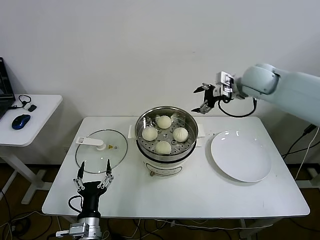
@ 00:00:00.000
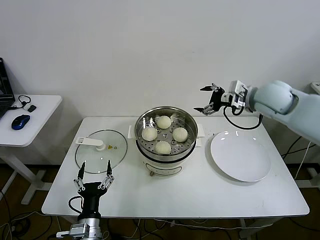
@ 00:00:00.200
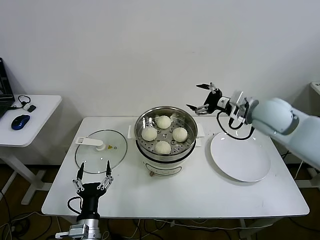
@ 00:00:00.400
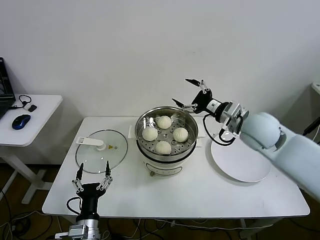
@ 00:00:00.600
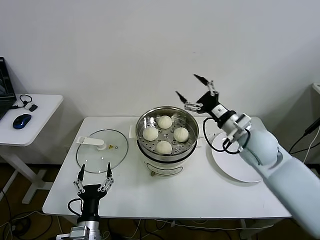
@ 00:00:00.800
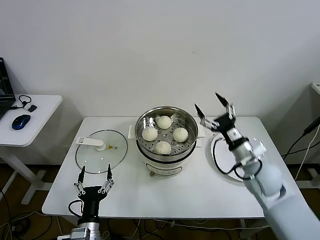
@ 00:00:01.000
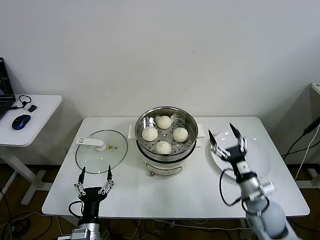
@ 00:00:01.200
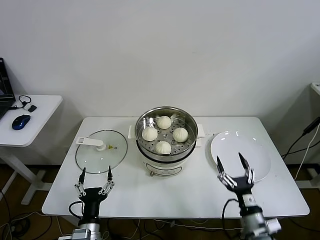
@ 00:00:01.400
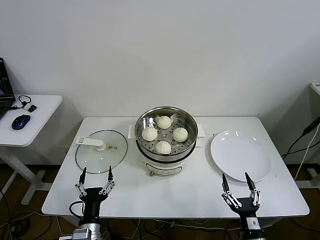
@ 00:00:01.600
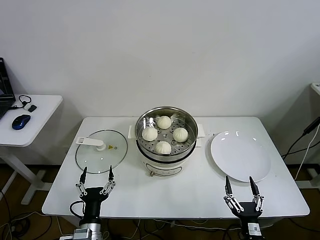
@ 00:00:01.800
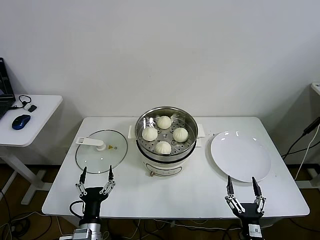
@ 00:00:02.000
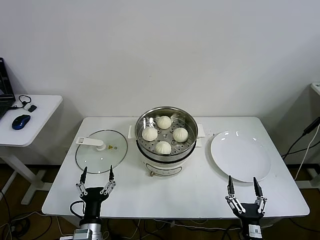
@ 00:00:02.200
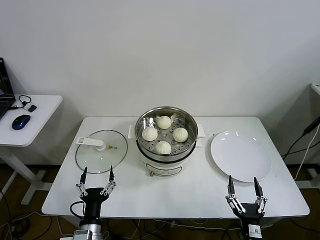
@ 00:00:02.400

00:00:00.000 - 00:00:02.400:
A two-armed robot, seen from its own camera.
00:00:00.000 - 00:00:01.200: The right gripper shifts approximately 35 cm downward and backward.
00:00:01.200 - 00:00:02.400: The right gripper is displaced backward and downward by about 20 cm.
